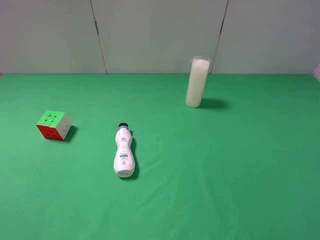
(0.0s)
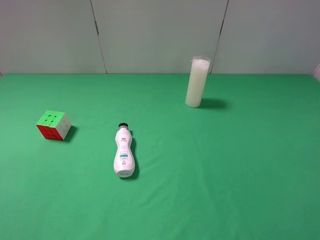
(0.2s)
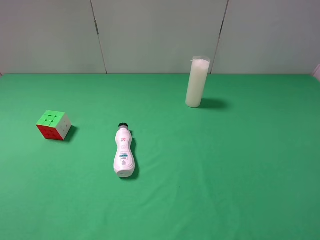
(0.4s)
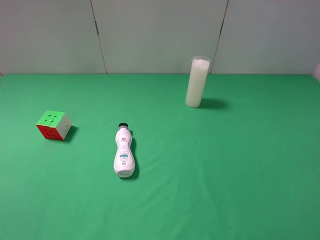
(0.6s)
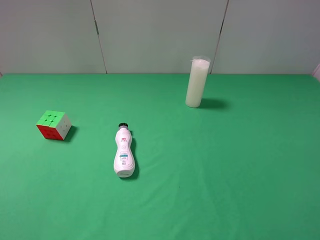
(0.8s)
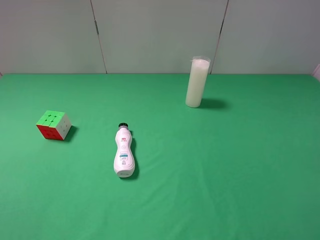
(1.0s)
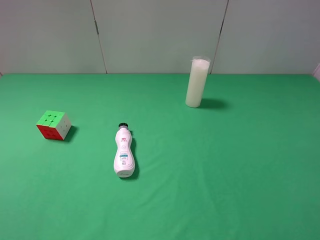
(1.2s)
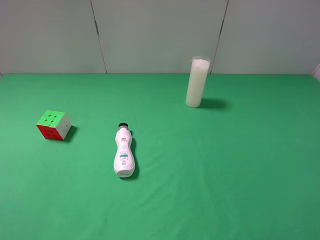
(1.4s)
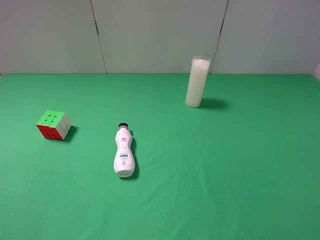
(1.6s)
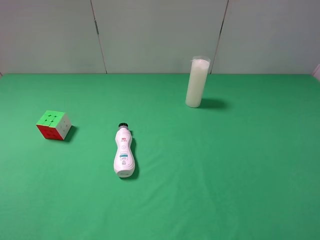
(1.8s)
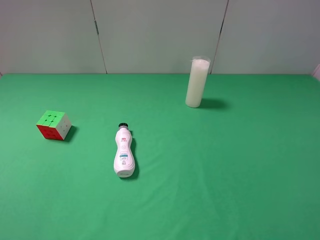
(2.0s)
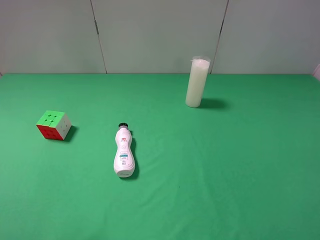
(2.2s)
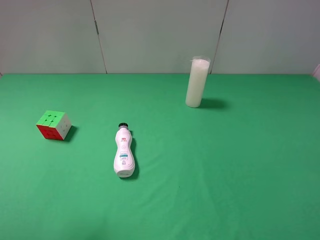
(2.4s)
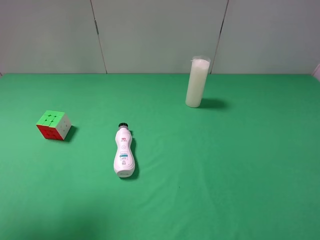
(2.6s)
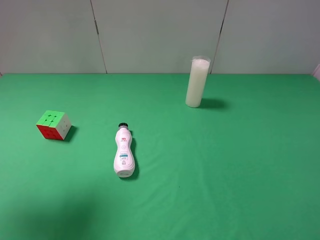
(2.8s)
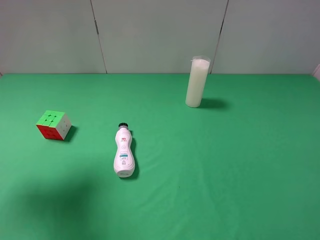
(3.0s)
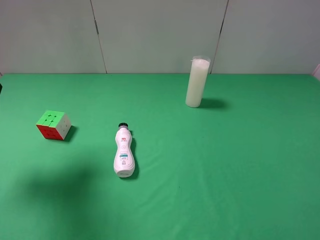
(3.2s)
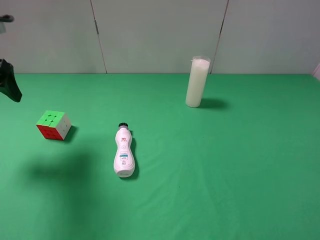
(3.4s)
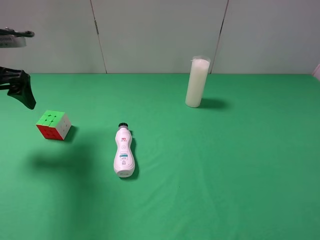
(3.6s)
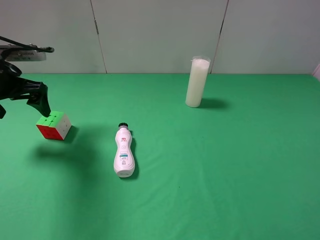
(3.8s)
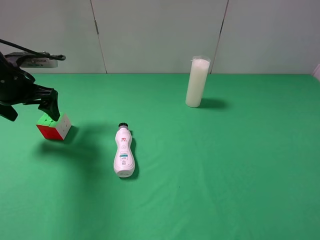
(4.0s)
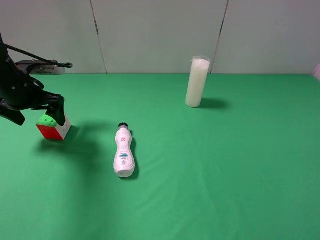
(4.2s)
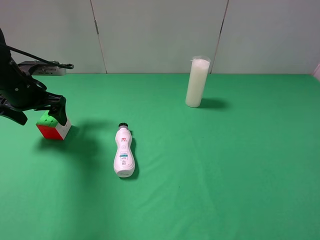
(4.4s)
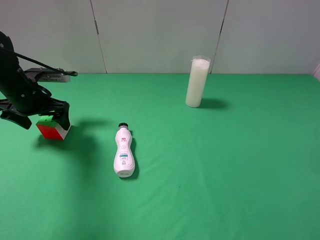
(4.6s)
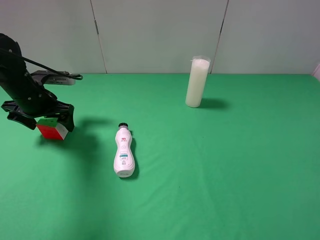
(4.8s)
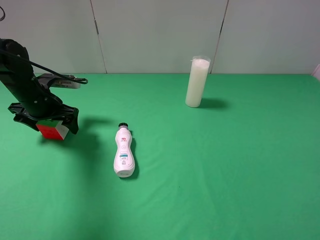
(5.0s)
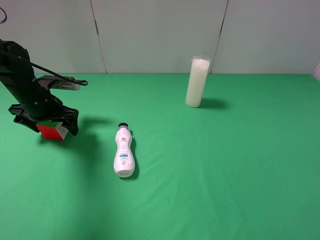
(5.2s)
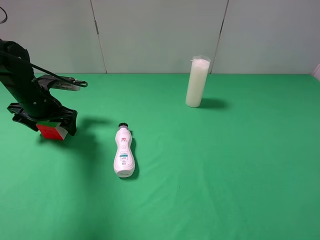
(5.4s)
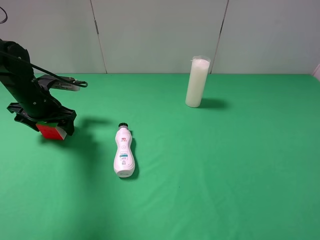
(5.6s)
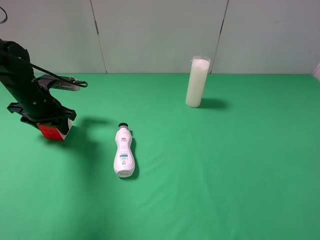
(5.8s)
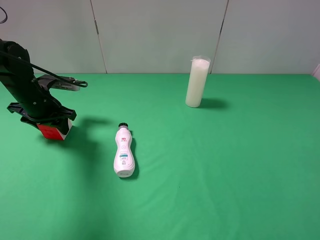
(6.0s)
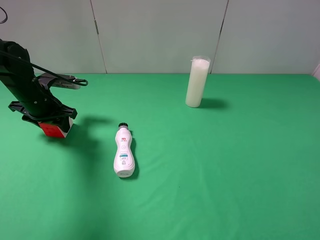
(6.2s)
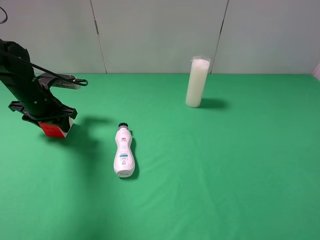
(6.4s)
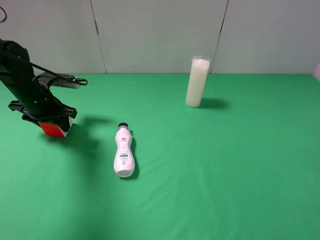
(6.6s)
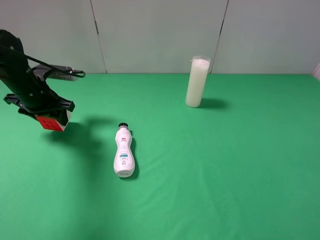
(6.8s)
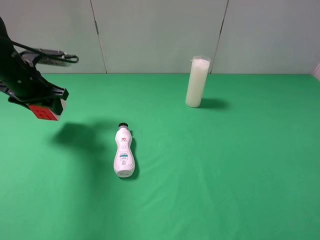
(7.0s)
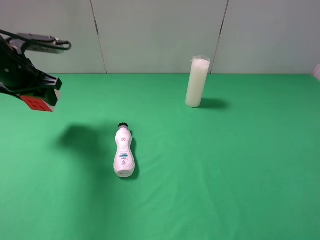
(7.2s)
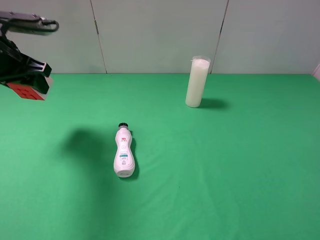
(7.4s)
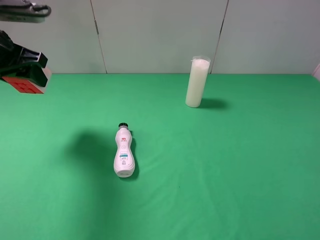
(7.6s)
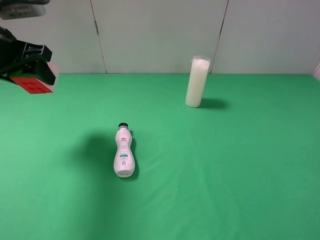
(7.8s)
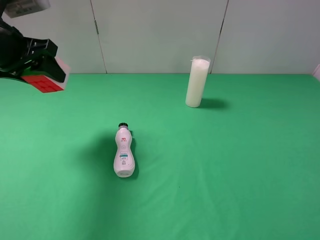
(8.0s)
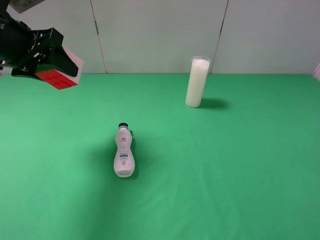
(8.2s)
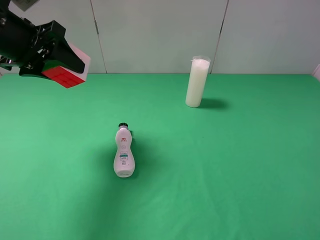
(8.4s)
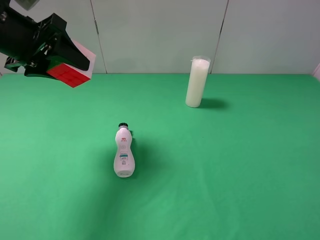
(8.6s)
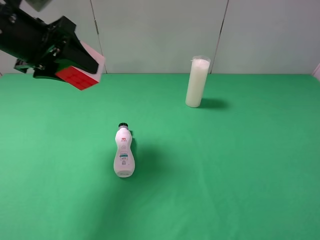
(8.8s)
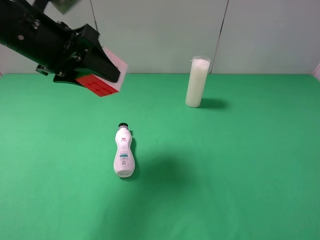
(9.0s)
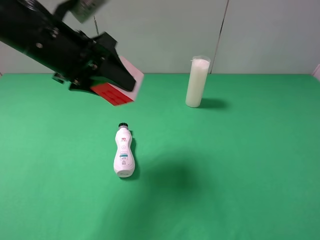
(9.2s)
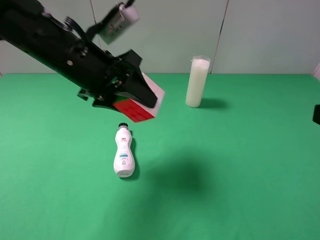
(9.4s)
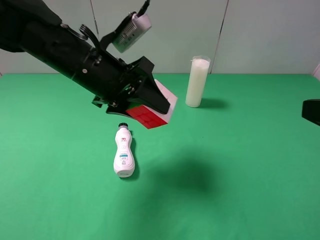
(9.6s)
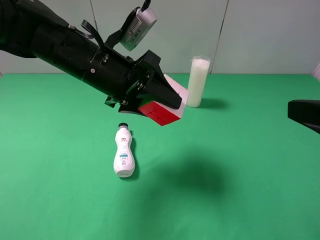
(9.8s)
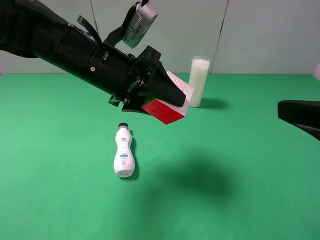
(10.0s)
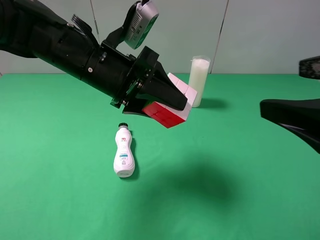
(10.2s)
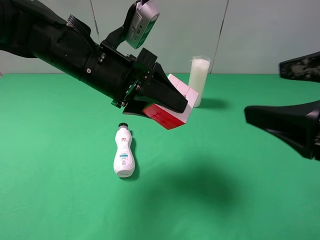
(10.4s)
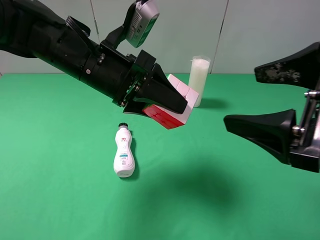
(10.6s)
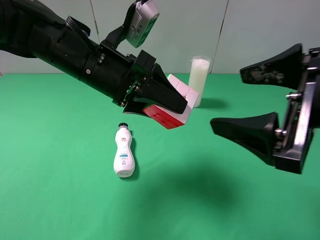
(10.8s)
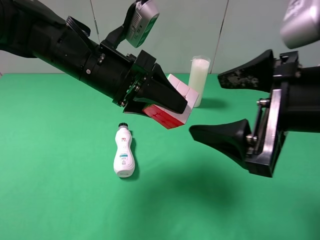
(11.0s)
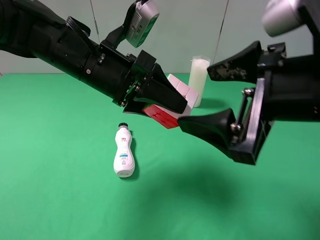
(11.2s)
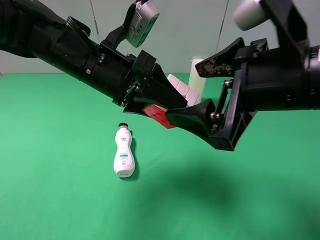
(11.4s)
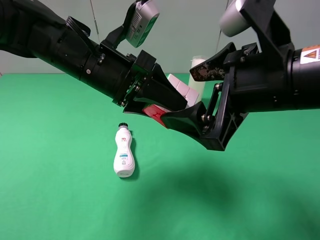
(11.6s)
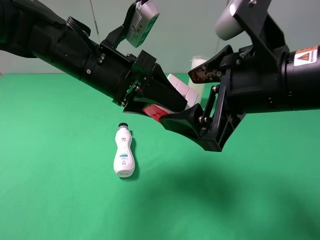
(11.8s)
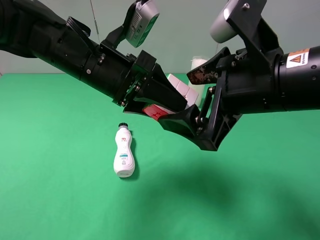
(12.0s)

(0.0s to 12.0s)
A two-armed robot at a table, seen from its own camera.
Task of the whole recording: use the left gripper to pick up the item and transfer it from the left gripper to the right gripper.
0.0s - 1.6s: The two grippers keep their place.
1.6s - 3.0s: The left gripper travels forward by roughly 20 cm.
3.0s - 4.4s: The left gripper shifts approximately 20 cm downward and forward.
4.4s - 6.0s: The left gripper closes up.
6.0s - 7.6s: The left gripper heads upward, covering about 15 cm.
7.6s - 9.0s: The left gripper heads to the right, covering approximately 10 cm.
9.0s - 10.4s: The right gripper heads forward and to the left, covering approximately 10 cm; the left gripper travels to the right and downward by roughly 10 cm.
10.4s - 12.0s: The right gripper travels to the left and forward by roughly 10 cm.

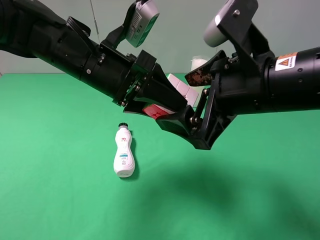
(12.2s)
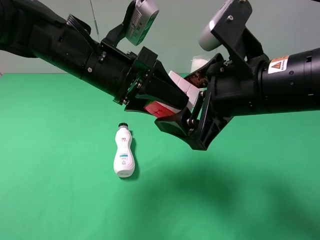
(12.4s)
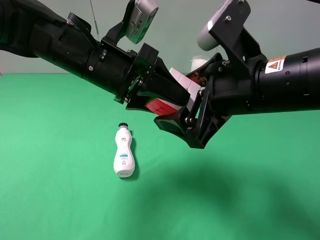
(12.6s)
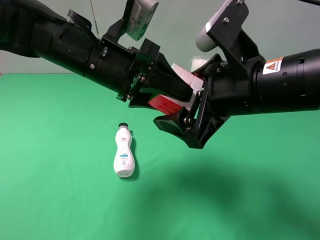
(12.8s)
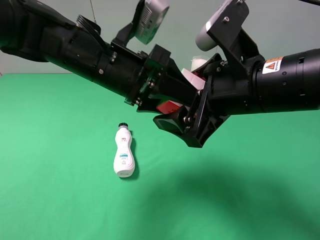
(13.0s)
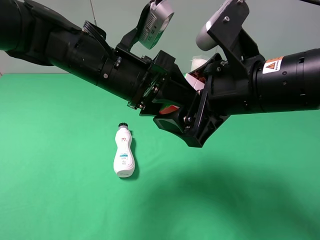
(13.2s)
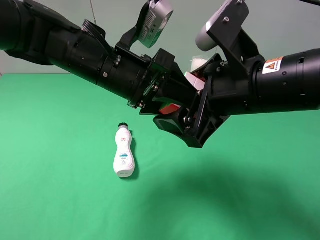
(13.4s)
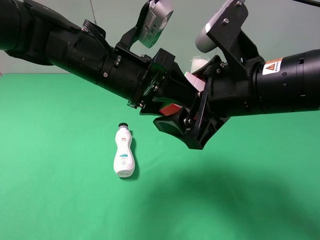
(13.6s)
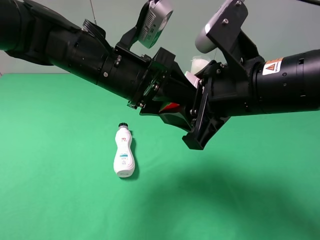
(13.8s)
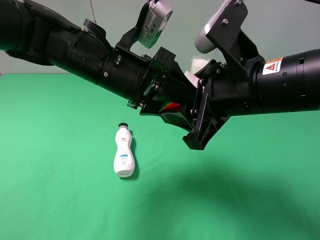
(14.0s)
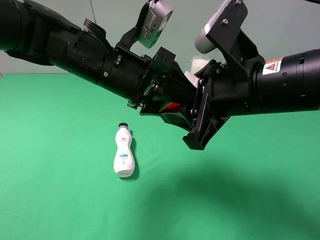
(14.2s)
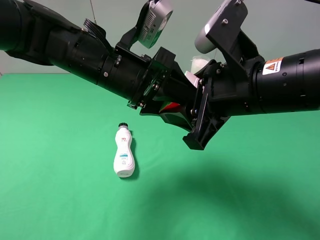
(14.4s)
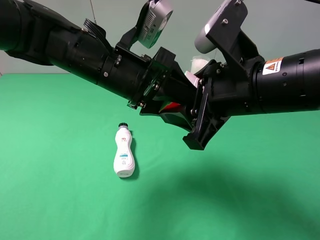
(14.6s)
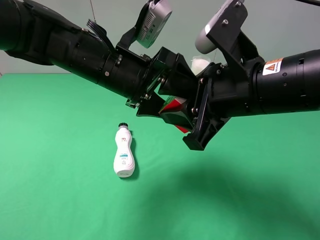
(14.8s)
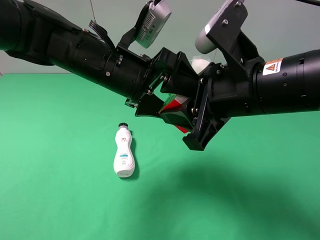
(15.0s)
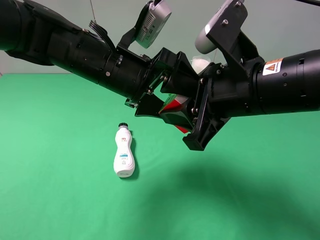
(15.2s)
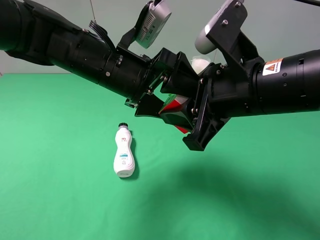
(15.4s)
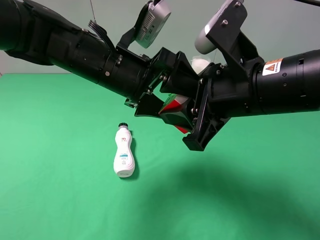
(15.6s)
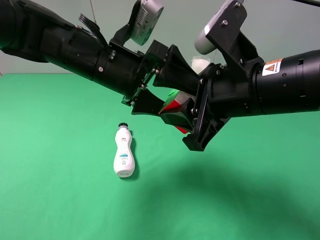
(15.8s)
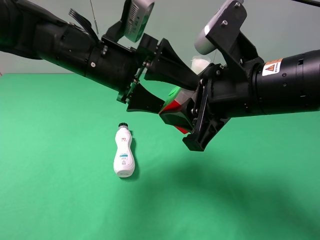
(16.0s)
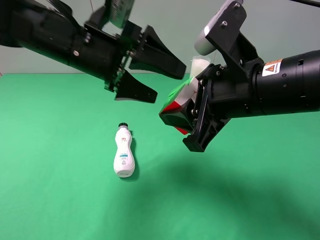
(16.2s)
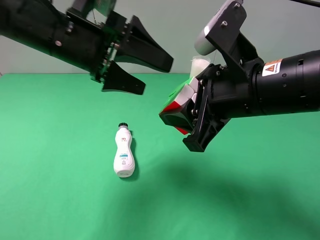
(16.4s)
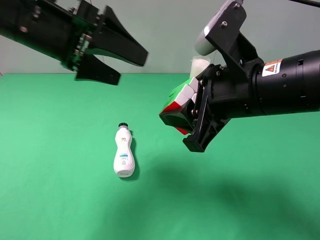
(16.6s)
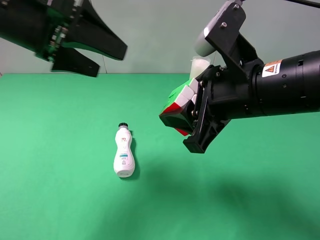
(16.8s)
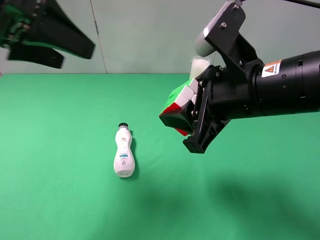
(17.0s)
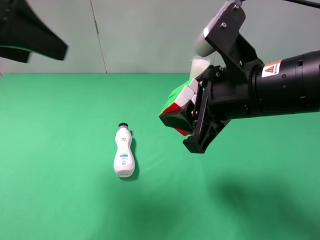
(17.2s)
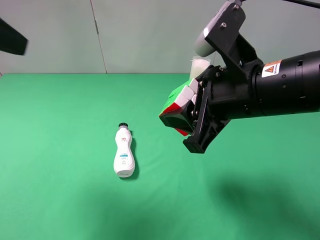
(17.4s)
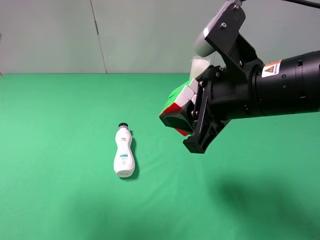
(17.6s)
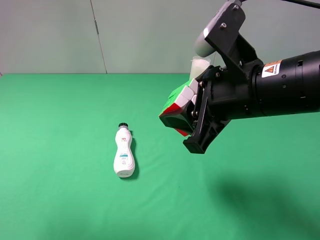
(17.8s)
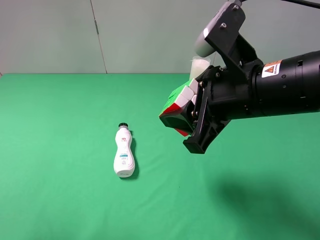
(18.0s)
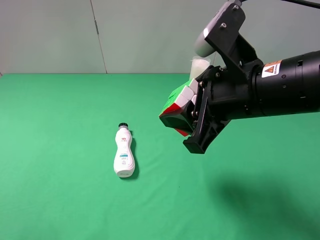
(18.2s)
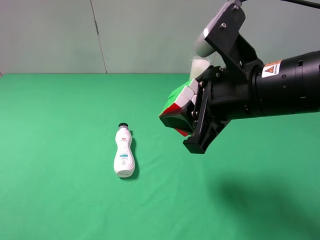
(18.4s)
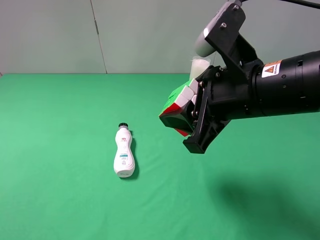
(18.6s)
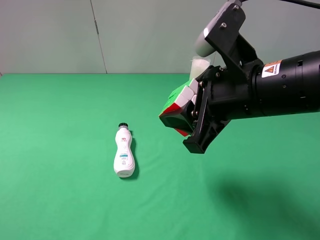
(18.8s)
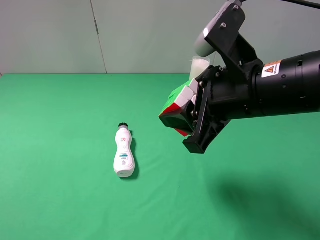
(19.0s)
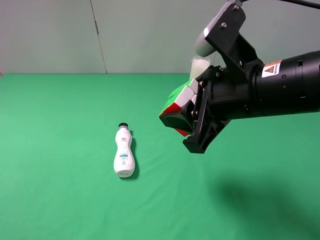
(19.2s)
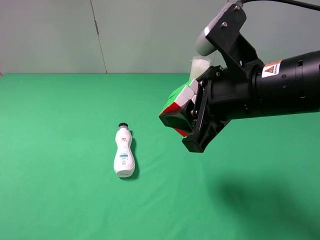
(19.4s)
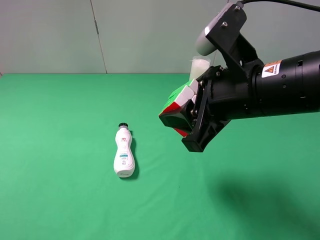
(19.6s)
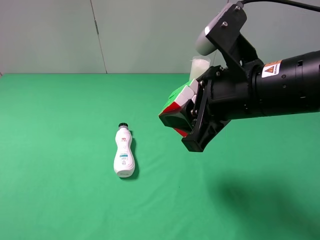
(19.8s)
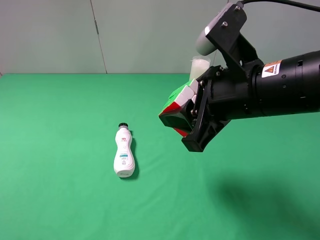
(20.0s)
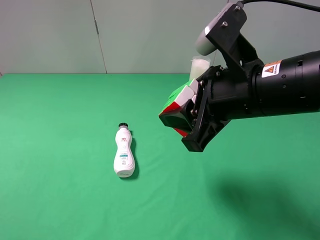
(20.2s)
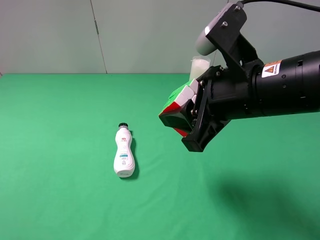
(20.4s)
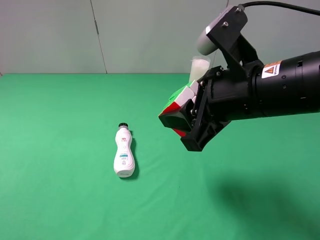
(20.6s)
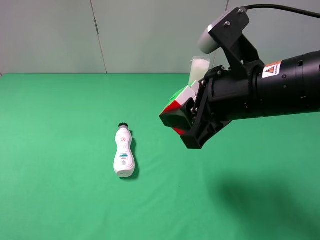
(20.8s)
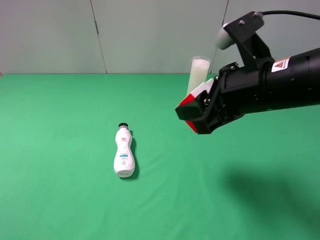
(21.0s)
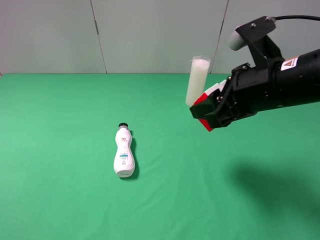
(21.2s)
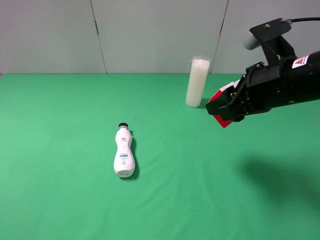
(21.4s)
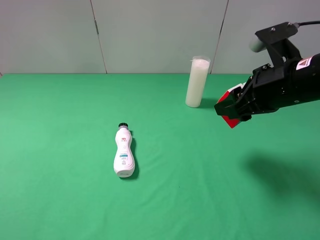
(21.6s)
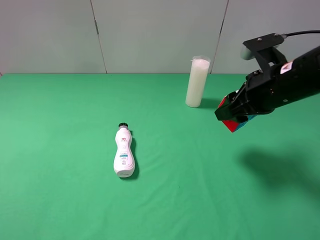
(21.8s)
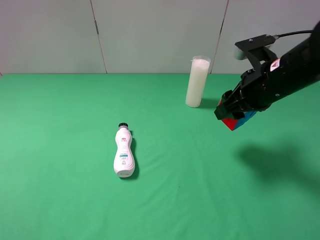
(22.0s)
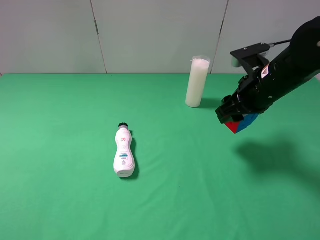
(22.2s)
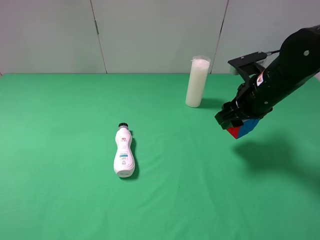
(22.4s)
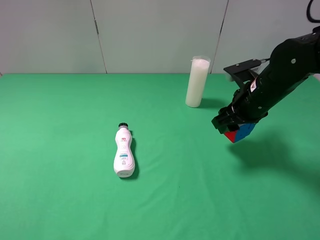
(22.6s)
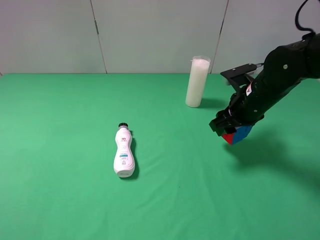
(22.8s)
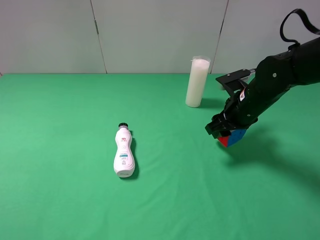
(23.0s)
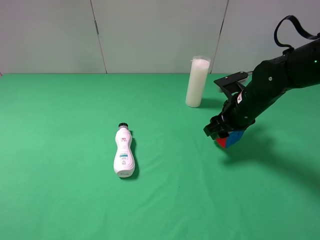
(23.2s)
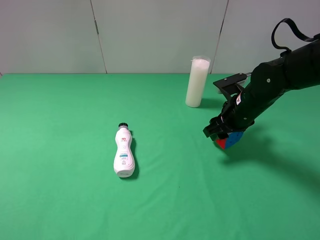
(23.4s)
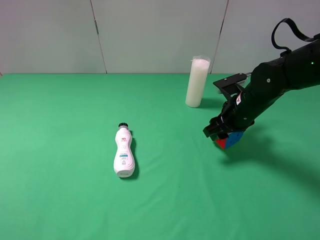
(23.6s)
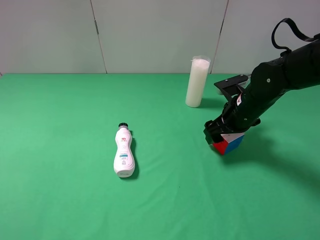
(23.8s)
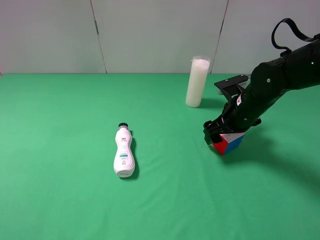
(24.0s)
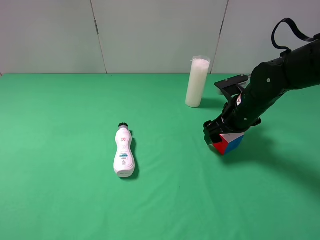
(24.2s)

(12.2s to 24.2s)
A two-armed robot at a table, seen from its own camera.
Task of the whole recording: use the left gripper to pick up the item and transfer it from the left gripper to the right gripper.
12.2s - 13.8s: The right gripper closes up.
13.8s - 15.2s: The left gripper opens up.
15.2s - 16.6s: The left gripper is displaced to the left and upward by approximately 10 cm.
16.6s - 18.2s: The left gripper goes roughly 25 cm backward and to the left.
18.2s - 19.8s: The left gripper travels downward by approximately 5 cm.
19.8s - 21.2s: The right gripper shifts by some 5 cm.
21.2s - 22.6s: The right gripper is displaced downward and forward by some 10 cm.
22.6s - 24.2s: The right gripper opens up.
